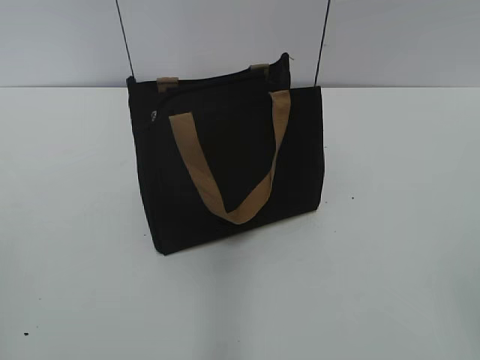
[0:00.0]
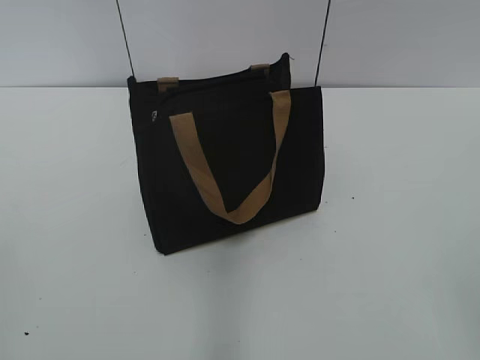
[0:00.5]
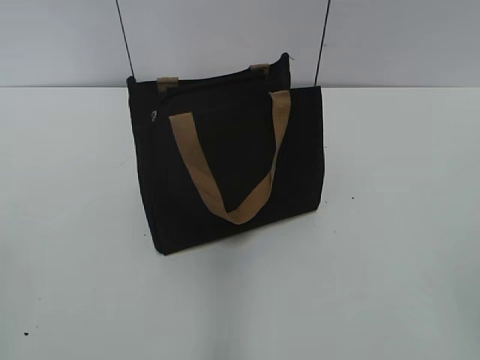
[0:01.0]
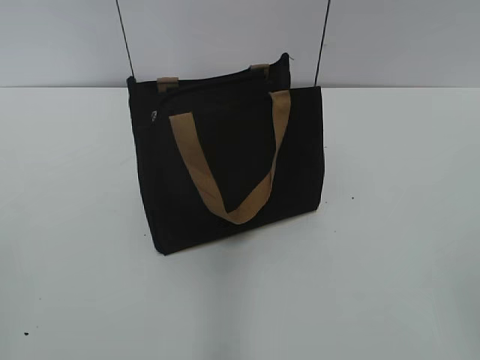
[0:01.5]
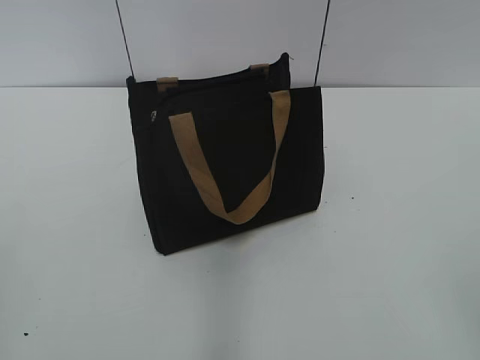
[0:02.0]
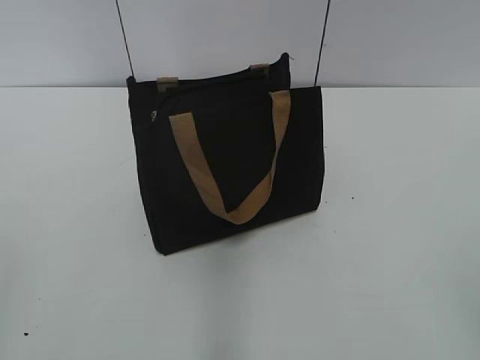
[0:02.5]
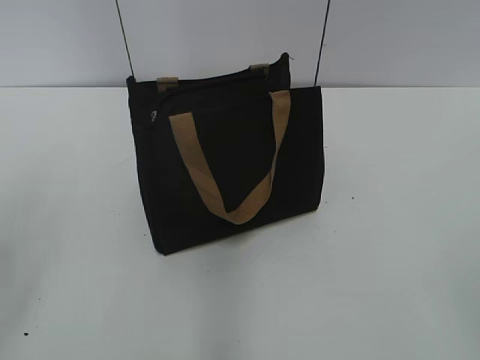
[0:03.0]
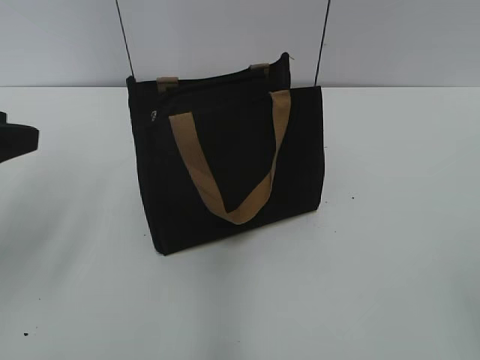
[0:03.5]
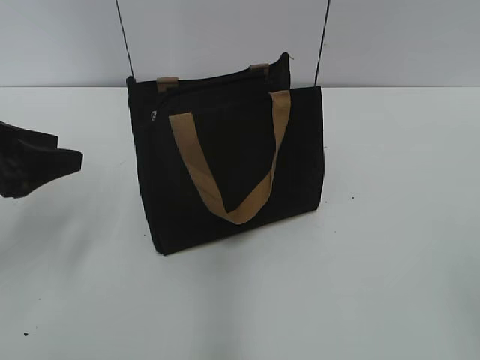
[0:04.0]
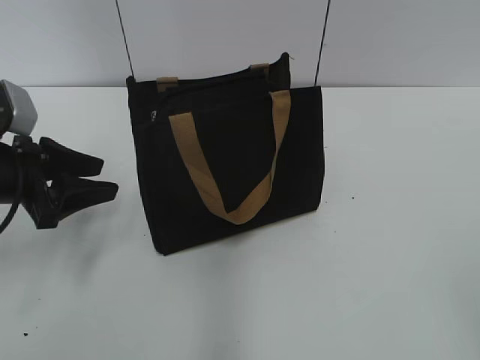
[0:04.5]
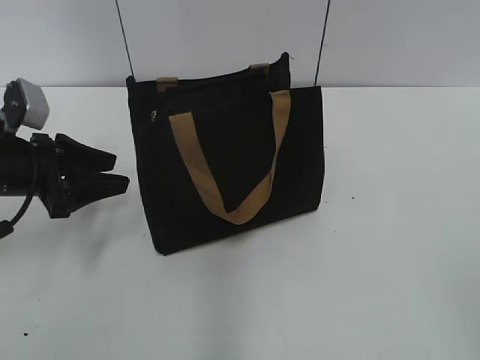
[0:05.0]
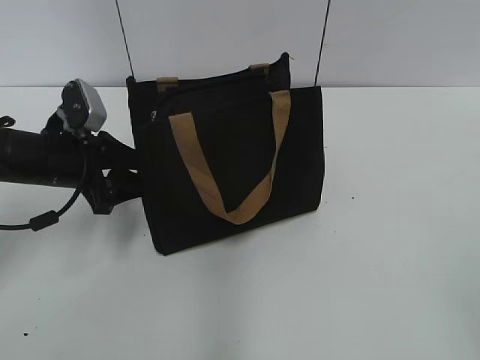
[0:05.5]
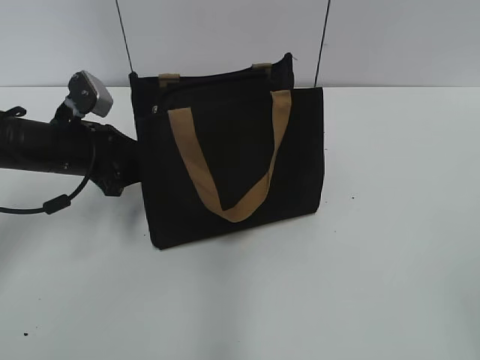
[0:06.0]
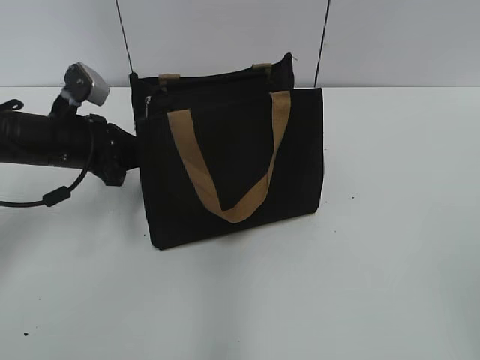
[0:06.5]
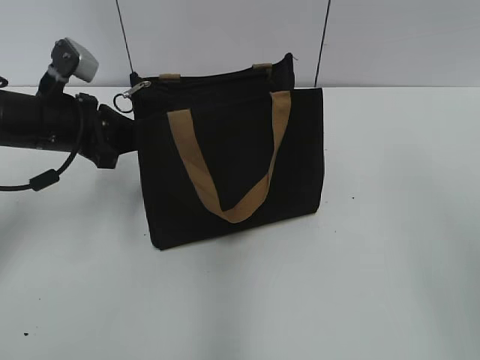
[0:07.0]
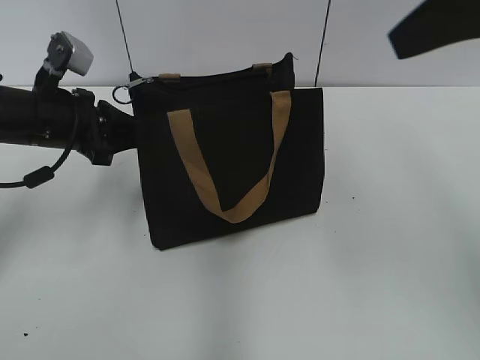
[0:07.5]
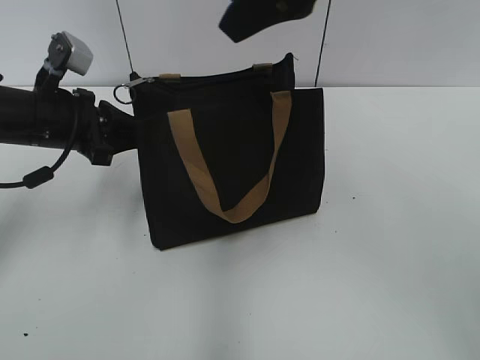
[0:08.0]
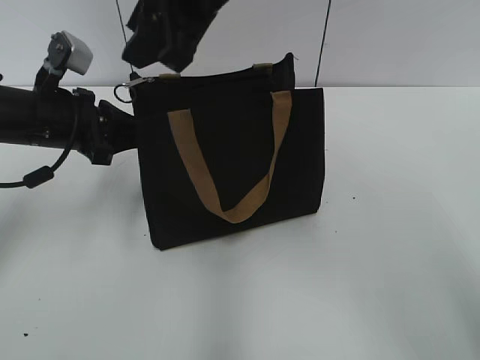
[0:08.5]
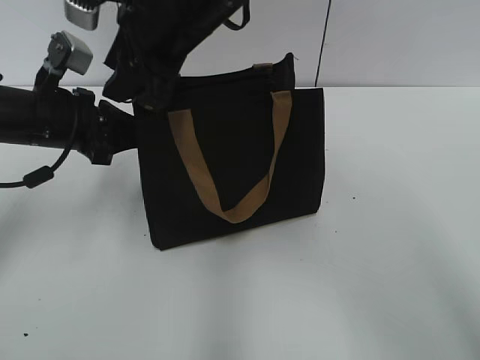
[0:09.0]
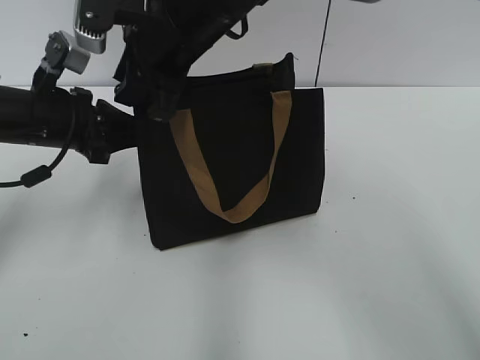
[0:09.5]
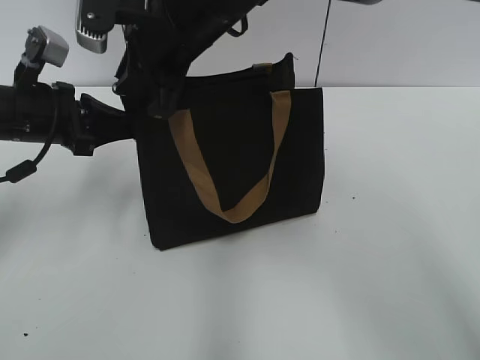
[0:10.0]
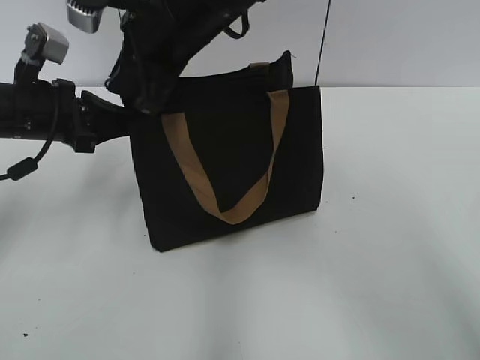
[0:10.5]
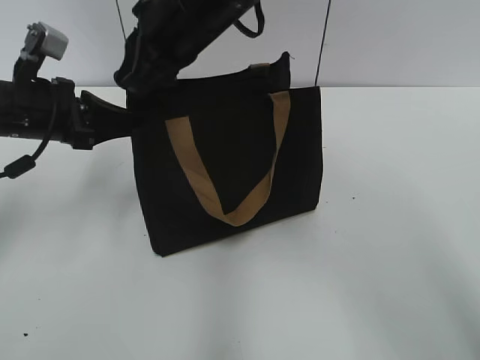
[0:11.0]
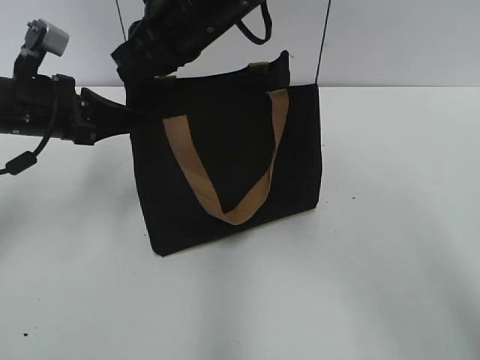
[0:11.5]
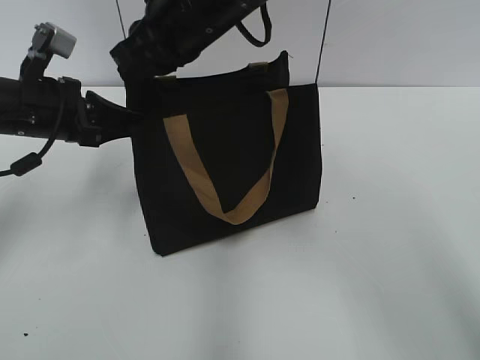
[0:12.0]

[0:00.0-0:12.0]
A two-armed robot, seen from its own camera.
0:02.0 to 0:04.0: The left gripper is displaced forward by roughly 25 cm, and opens its fingers.
0:04.0 to 0:06.0: The left gripper is displaced forward, downward and to the right by approximately 15 cm.
0:06.0 to 0:08.0: The right gripper moves forward and to the left, roughly 35 cm, and closes its fingers; the left gripper heads upward, covering some 5 cm, and closes.
0:08.0 to 0:10.0: The right gripper moves to the left, downward and forward, about 15 cm, and closes its fingers.

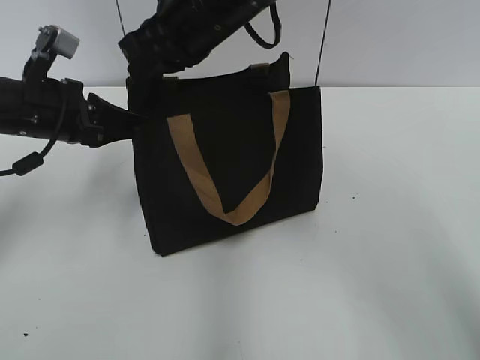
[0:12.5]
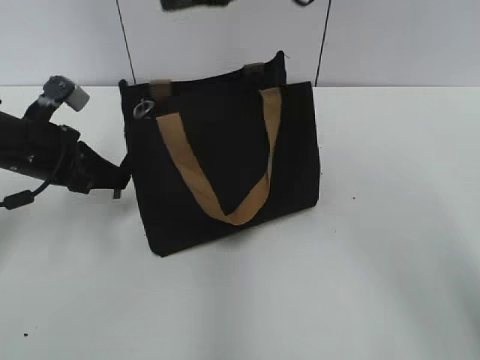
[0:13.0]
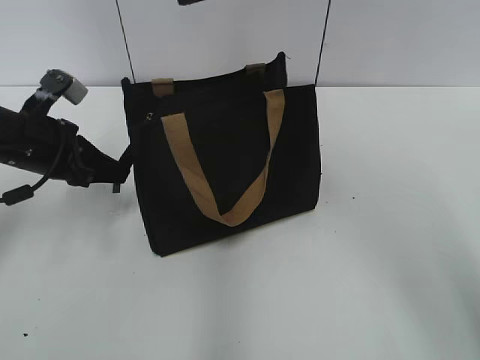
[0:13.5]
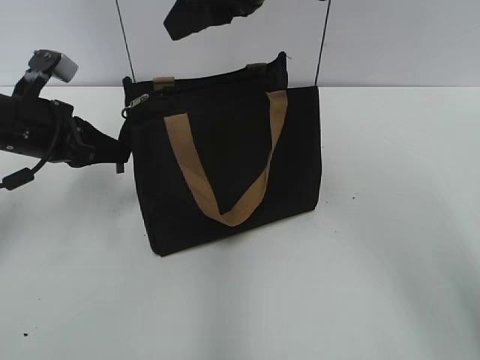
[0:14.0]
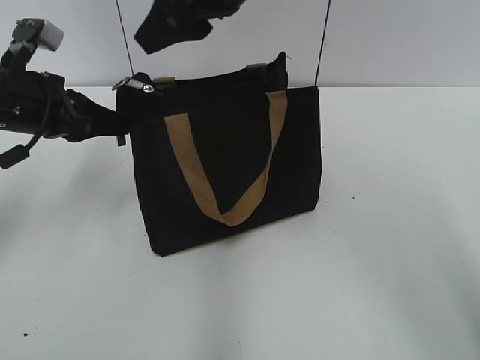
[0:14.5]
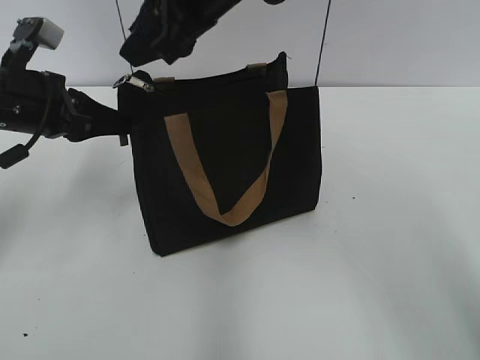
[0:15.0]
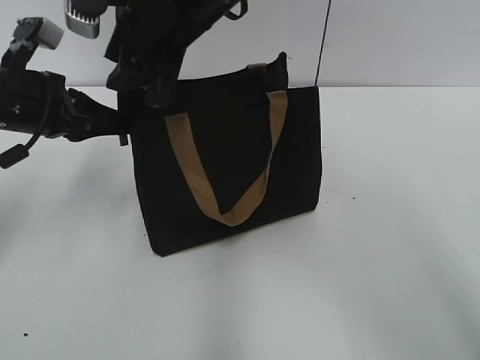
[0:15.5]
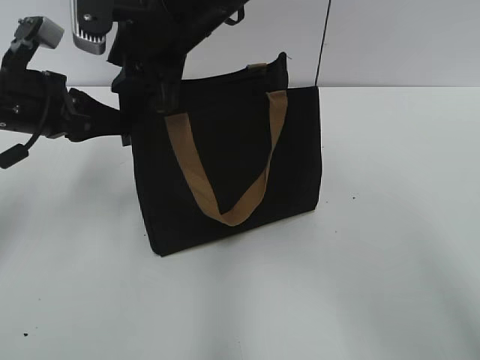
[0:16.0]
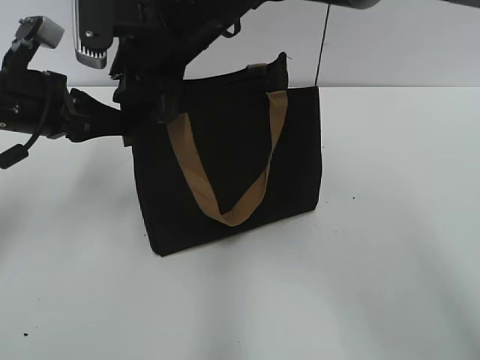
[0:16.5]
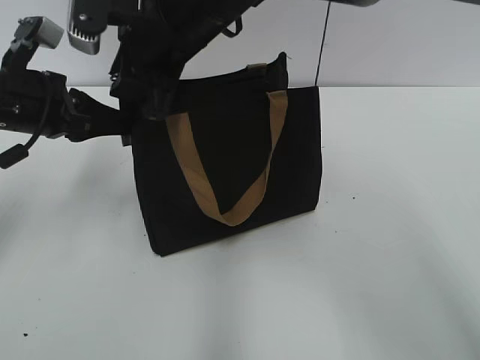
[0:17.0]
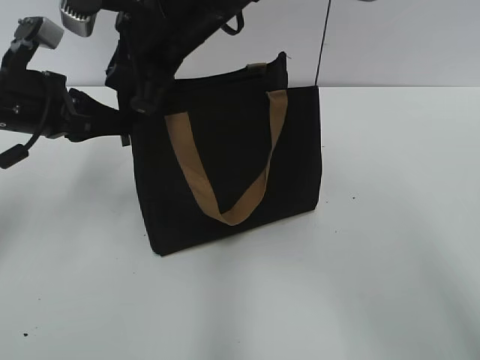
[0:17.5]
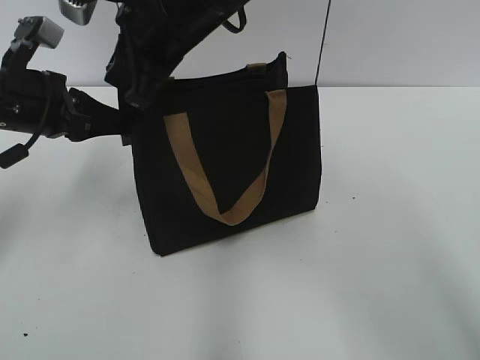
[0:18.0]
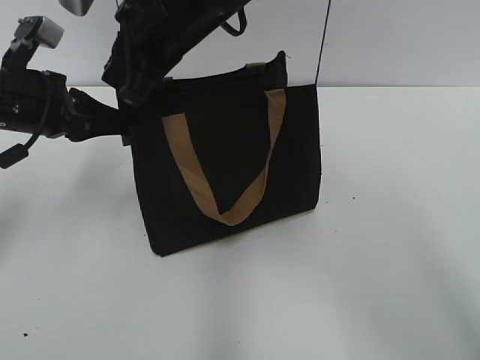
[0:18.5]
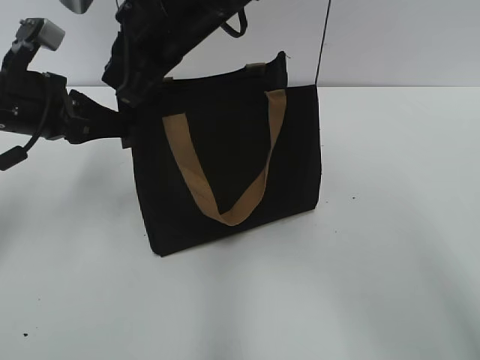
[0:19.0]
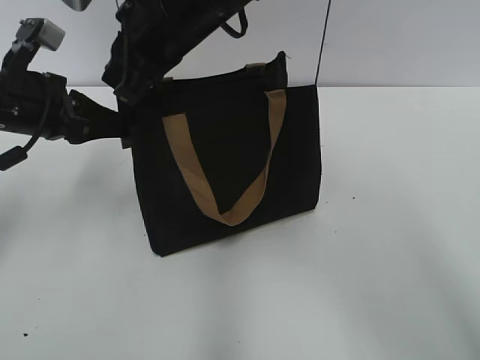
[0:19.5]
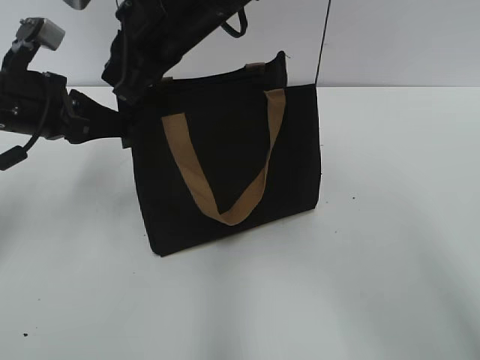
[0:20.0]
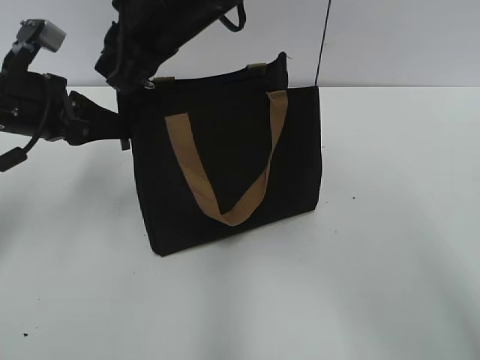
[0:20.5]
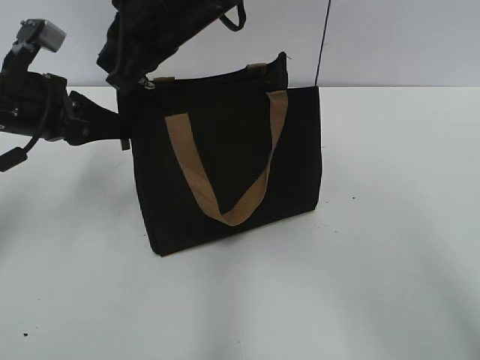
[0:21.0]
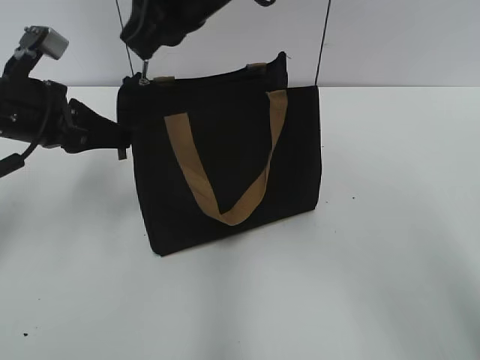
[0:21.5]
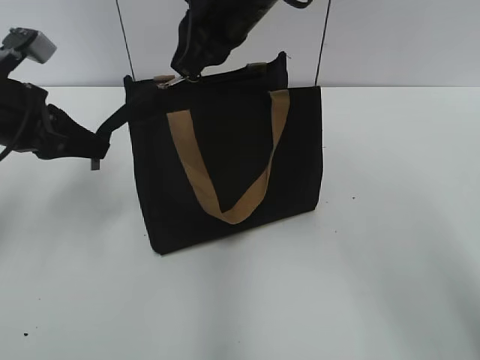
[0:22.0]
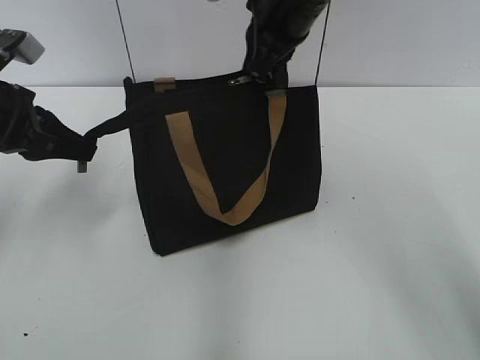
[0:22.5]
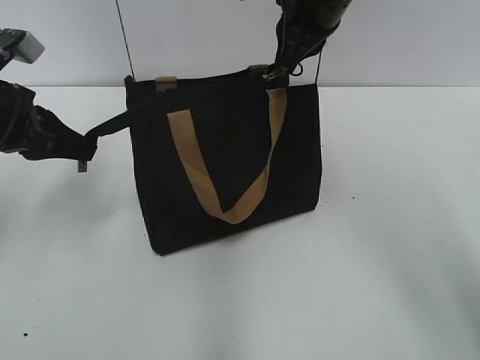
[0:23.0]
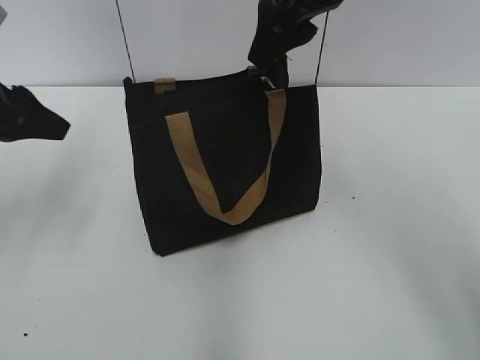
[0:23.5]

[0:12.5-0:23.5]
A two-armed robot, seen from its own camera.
Step, 0:12.5 to 0:23.0: Zip up the bag with your right hand.
0:12.5 to 0:14.5: The right gripper changes place by roughly 5 cm, and opens.
0:14.5 to 0:16.0: The right gripper heads to the left and downward, covering some 10 cm.
0:16.0 to 0:18.0: The right gripper closes its fingers.
0:18.0 to 0:21.5: The grippers move only a little.
0:21.5 to 0:23.5: The left gripper moves upward, about 5 cm, and opens up. Meanwhile the right gripper heads to the right, covering roughly 10 cm, and opens its fingers.

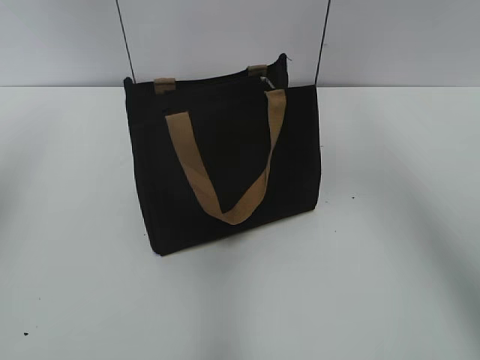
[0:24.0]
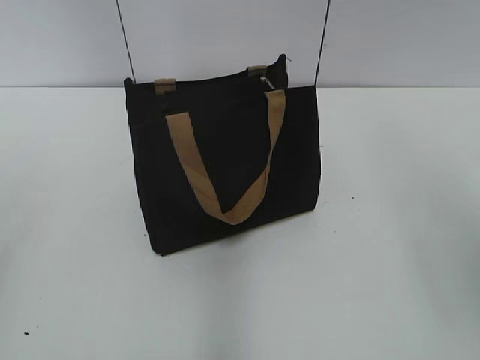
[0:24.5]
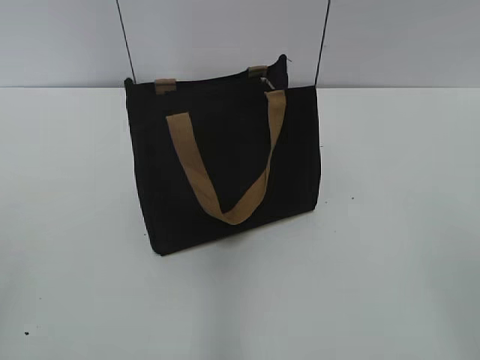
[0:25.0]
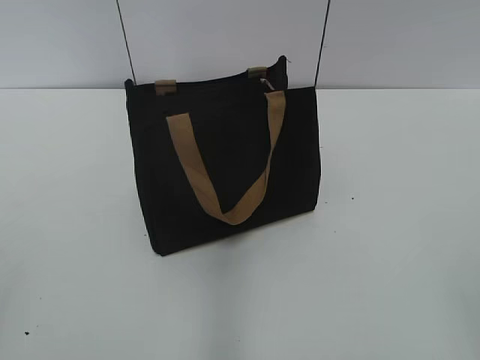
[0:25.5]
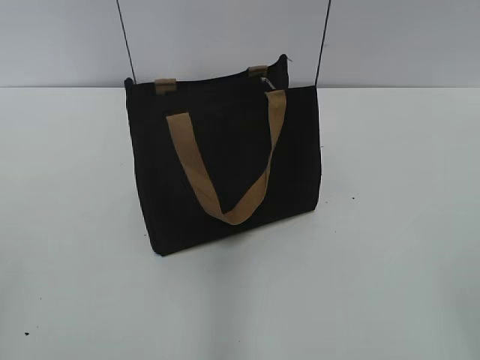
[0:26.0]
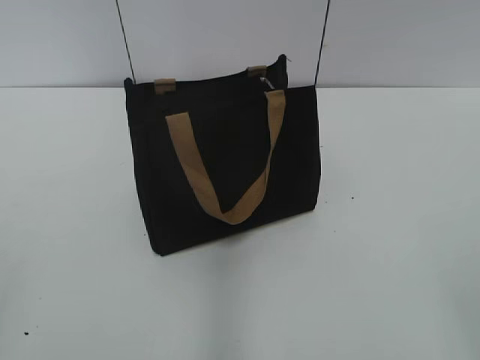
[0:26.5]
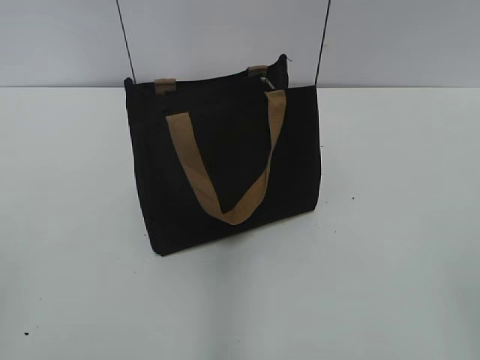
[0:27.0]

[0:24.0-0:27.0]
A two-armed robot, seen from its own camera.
0:24.0 to 0:25.5: Both grippers move backward, about 30 cm.
